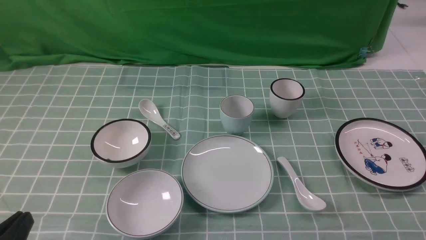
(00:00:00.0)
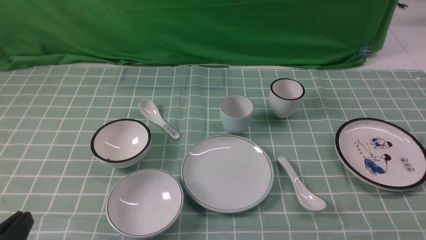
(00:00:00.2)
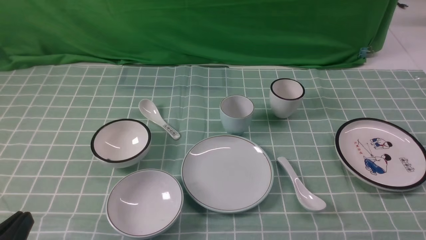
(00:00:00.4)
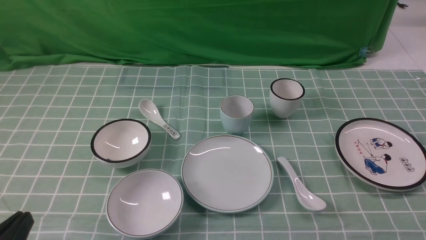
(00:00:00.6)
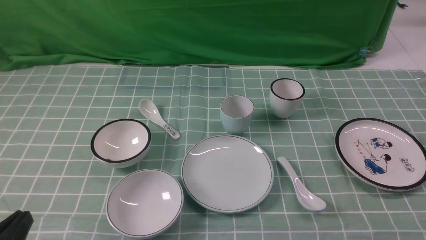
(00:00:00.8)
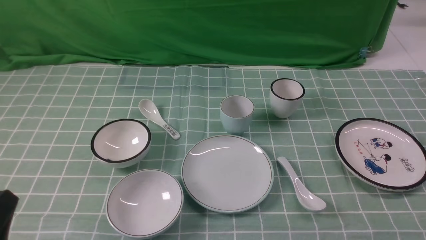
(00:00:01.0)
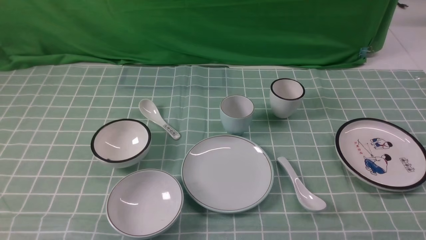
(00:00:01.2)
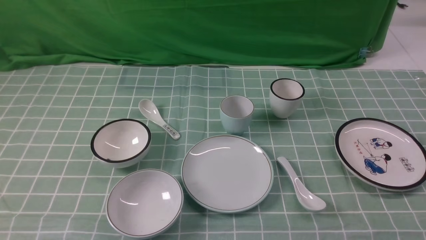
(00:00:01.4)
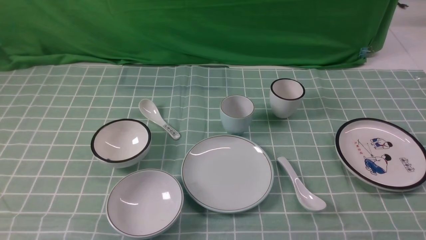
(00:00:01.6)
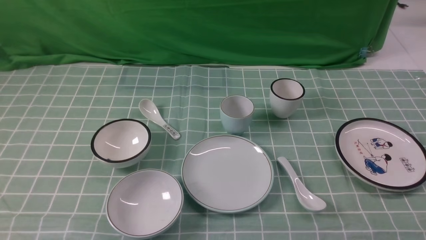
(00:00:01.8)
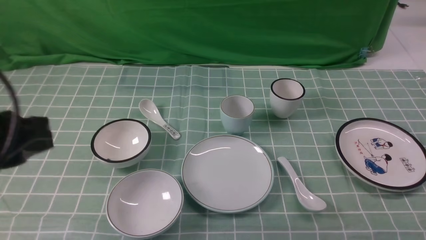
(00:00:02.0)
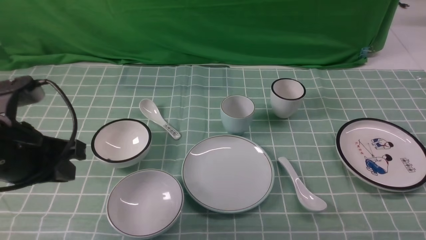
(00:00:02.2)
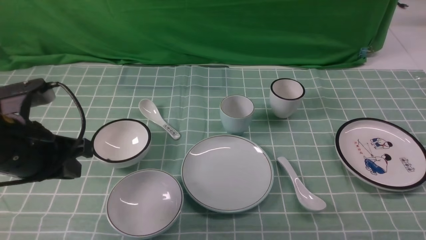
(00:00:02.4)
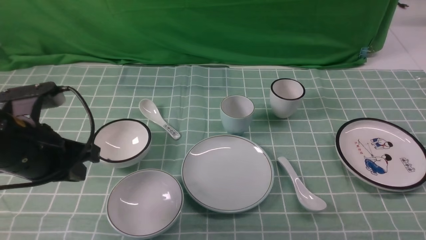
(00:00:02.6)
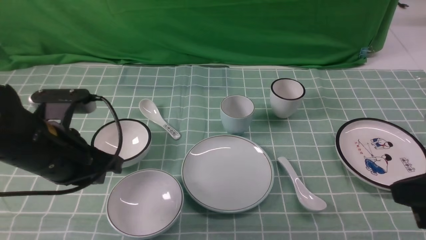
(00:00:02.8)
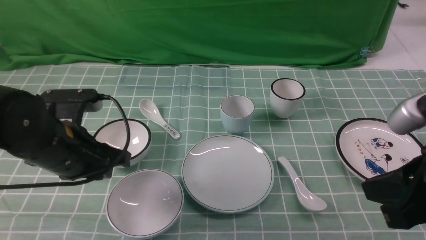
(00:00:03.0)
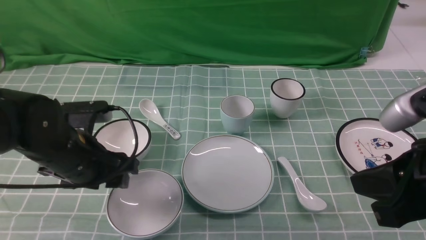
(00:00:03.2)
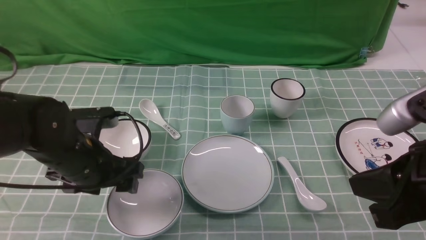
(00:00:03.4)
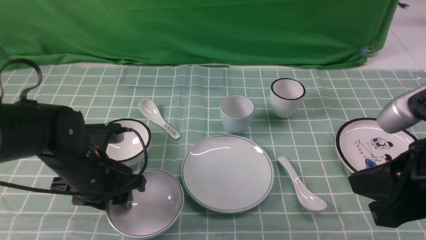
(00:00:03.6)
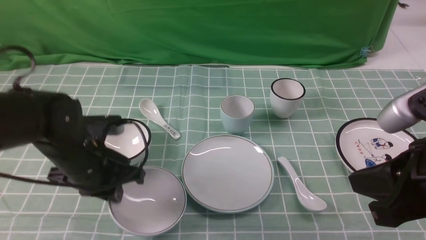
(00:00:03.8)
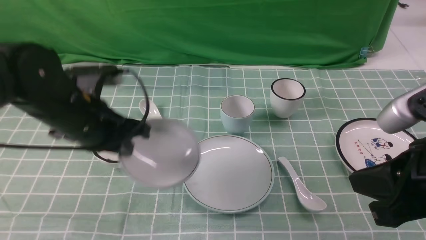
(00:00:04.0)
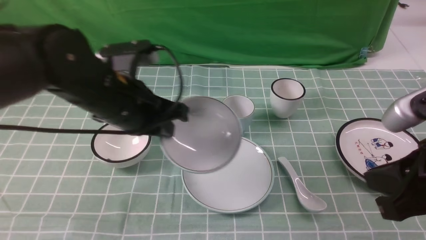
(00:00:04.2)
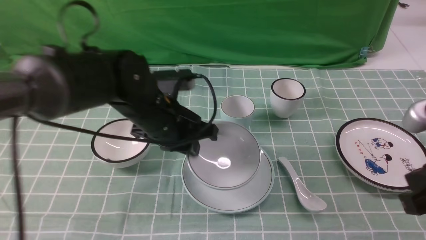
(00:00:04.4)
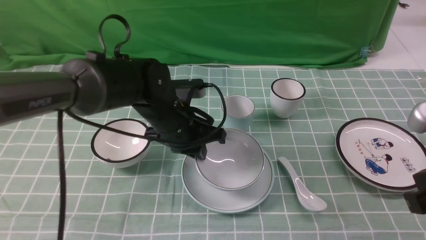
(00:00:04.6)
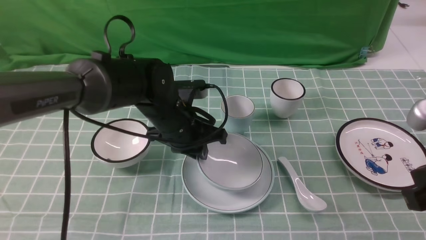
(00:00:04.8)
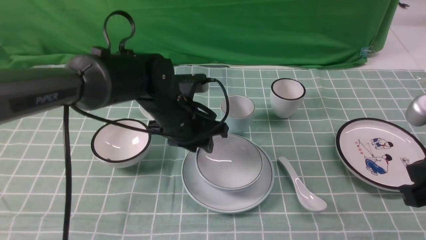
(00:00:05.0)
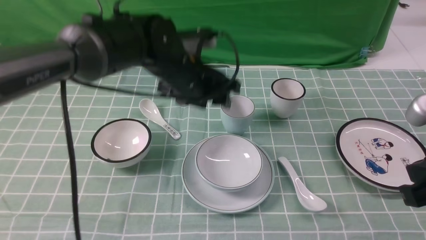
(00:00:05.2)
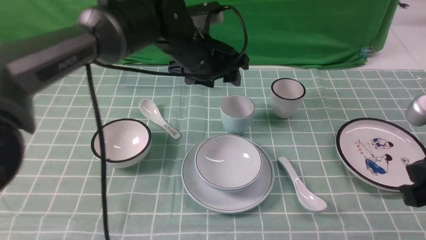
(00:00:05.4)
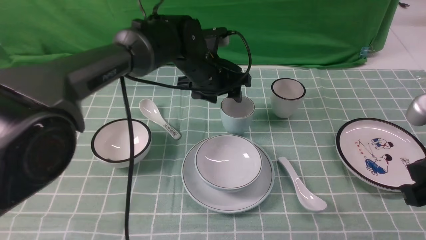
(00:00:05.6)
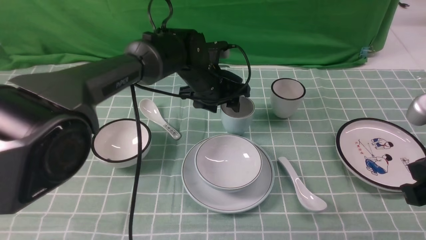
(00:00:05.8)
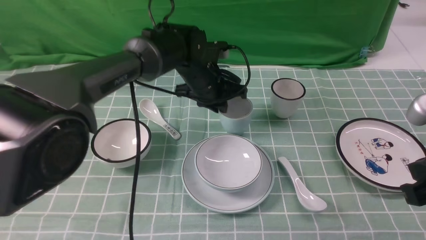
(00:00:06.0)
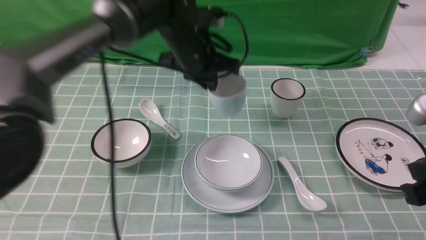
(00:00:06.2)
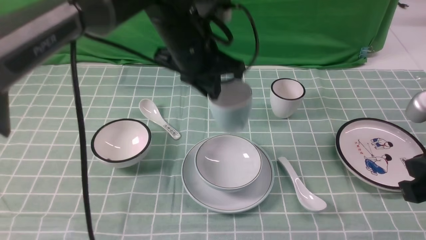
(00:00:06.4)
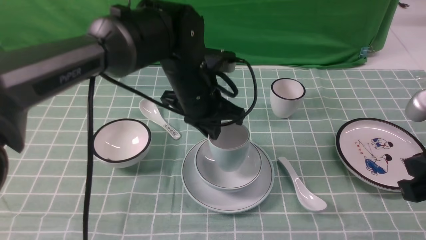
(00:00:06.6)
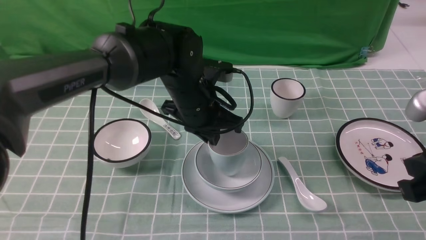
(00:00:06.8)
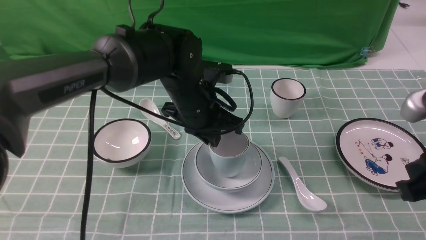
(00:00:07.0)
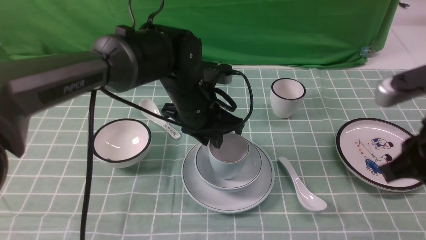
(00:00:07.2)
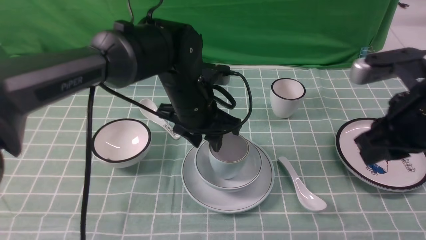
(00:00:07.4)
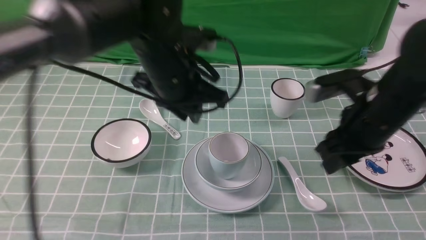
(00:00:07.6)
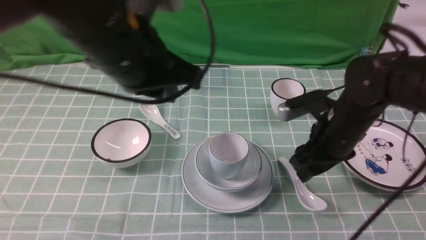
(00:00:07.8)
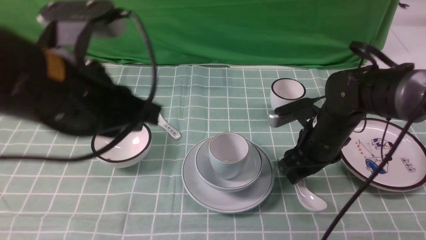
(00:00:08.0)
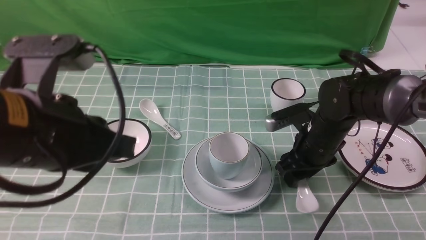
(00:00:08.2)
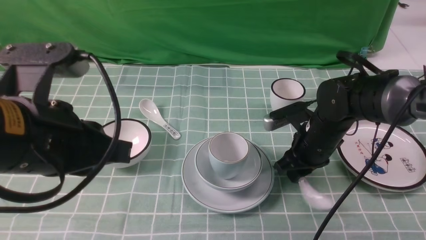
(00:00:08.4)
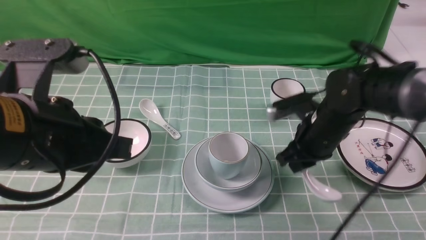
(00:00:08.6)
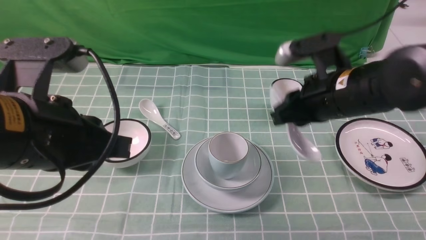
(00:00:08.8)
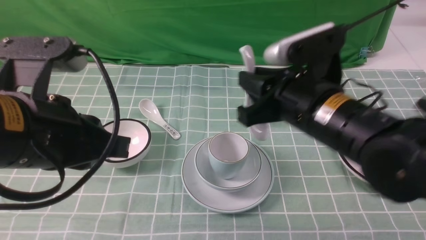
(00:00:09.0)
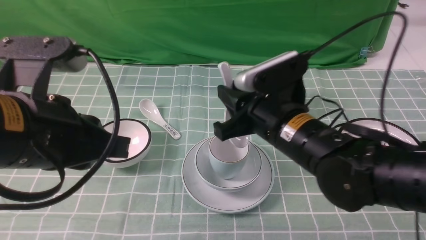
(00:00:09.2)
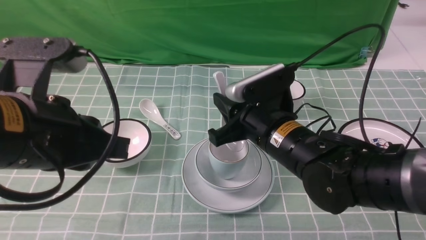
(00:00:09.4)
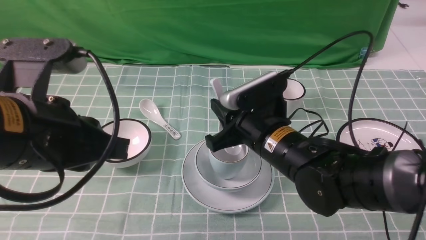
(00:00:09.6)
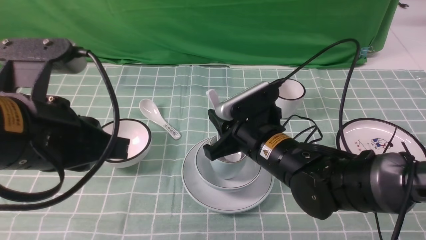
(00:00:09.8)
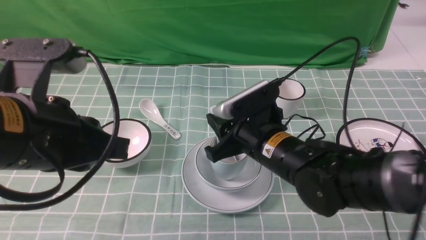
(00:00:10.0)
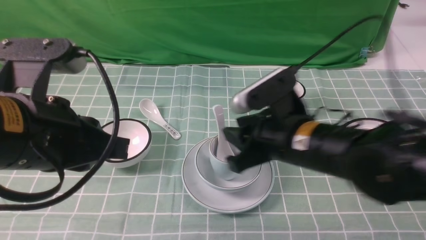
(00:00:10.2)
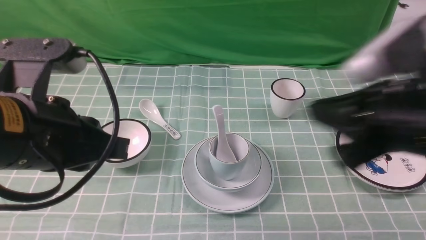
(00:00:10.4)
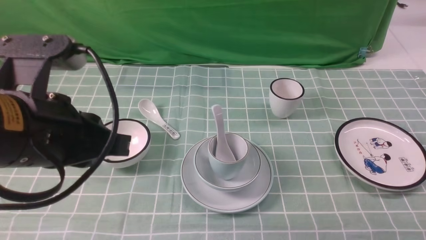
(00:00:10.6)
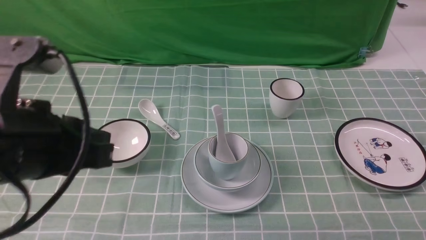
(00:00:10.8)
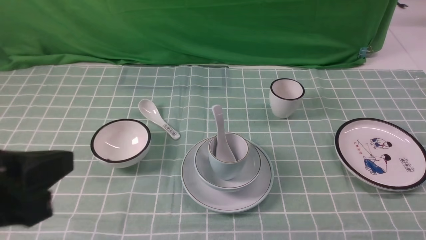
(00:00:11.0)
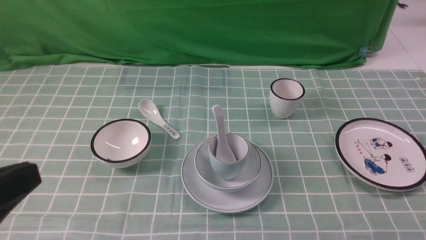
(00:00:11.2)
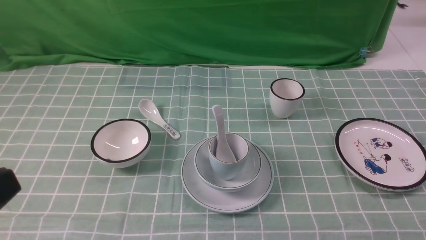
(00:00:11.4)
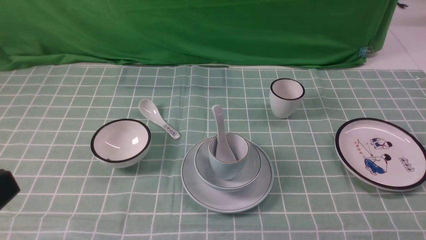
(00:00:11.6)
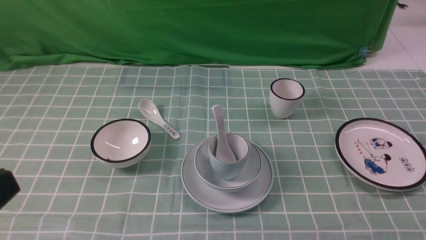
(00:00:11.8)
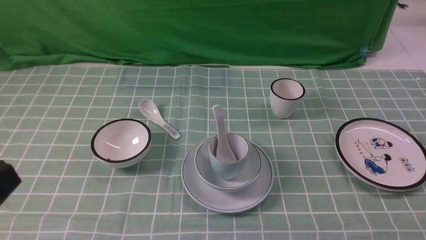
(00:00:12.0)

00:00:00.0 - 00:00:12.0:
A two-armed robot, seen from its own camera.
Task of the whole recording: place the bowls on the plates on the blue tablecloth, put the cups on the bowls, and place the spoons in the cups.
Step, 00:00:00.0 - 00:00:03.6: Grasp the bowl with the left gripper.
Step, 00:00:03.8 - 00:00:05.0: Place the bowl on the plate with the left gripper.
Step, 00:00:05.2 - 00:00:05.8: Grasp the cup with the left gripper.
Step, 00:00:06.2 - 00:00:07.2: Place the cup on the bowl with the left gripper.
Step, 00:00:07.4 - 00:00:08.4: Grasp the spoon with the right gripper.
Step, 00:00:08.6 - 00:00:10.0: Place the spoon on the cup with the right gripper.
00:00:01.6 - 00:00:03.0: The right gripper heads upward, to the left and forward, covering roughly 20 cm, and closes, while the left gripper travels forward by roughly 20 cm.
00:00:03.0 - 00:00:04.4: The left gripper goes roughly 10 cm to the right and forward, and opens, then closes again.
00:00:04.4 - 00:00:06.0: The left gripper heads forward and to the right, covering about 15 cm, and opens its fingers.
00:00:06.0 - 00:00:07.6: The right gripper heads forward, covering approximately 15 cm, and opens up, while the left gripper heads backward and upward, covering about 15 cm, and closes, then opens again.
00:00:07.6 - 00:00:09.0: The left gripper travels backward and to the left by roughly 20 cm, and closes its fingers; the right gripper goes some 10 cm to the left, reaches approximately 15 cm downward, then returns, and opens, then closes once more.
00:00:09.0 - 00:00:10.4: The right gripper shifts roughly 10 cm backward and upward.
00:00:10.4 - 00:00:12.0: The right gripper moves backward and to the right, about 25 cm. Meanwhile the left gripper goes about 15 cm backward and to the left.

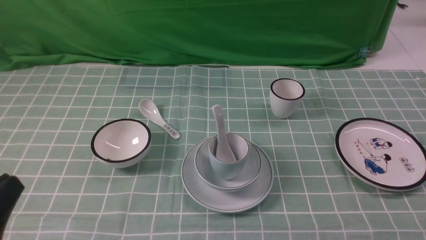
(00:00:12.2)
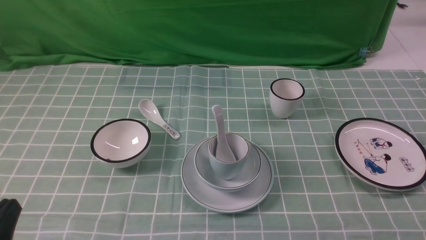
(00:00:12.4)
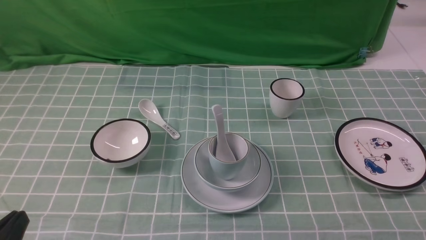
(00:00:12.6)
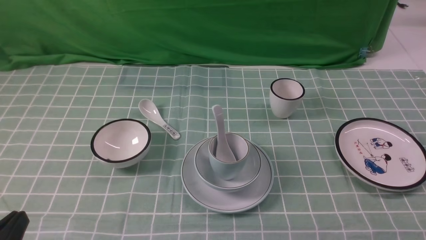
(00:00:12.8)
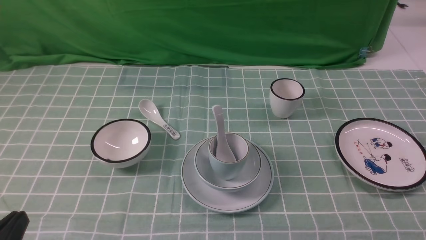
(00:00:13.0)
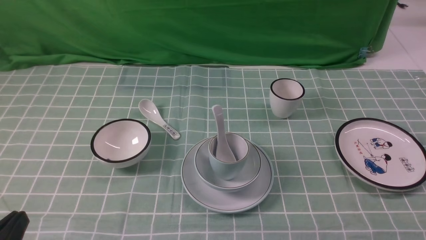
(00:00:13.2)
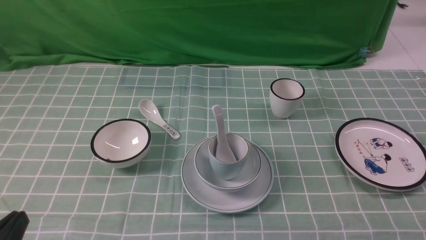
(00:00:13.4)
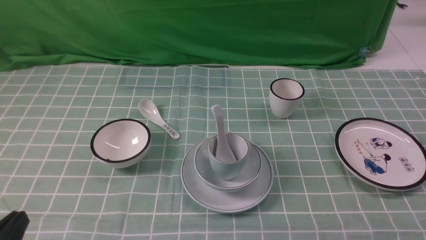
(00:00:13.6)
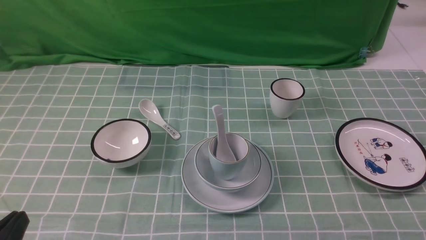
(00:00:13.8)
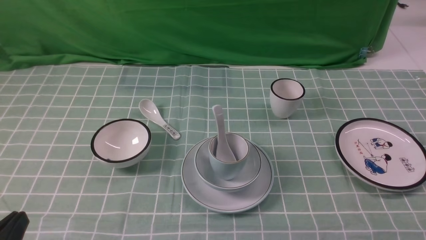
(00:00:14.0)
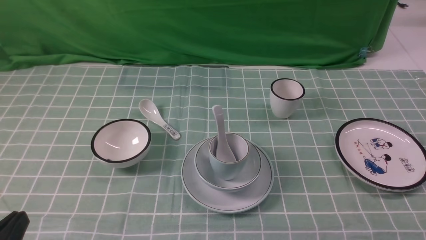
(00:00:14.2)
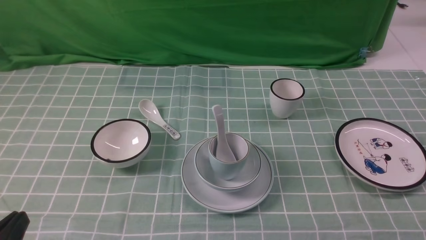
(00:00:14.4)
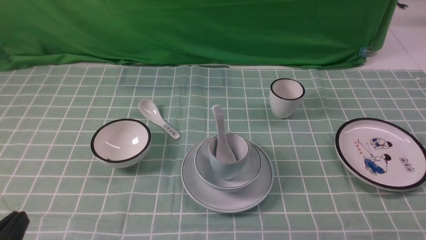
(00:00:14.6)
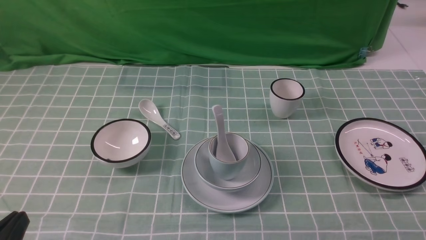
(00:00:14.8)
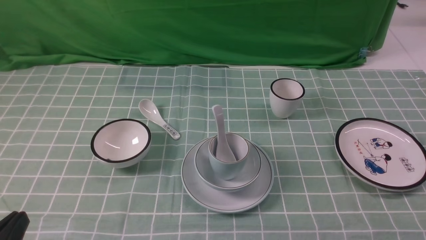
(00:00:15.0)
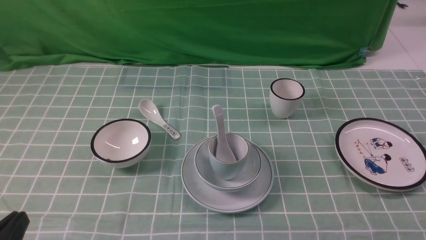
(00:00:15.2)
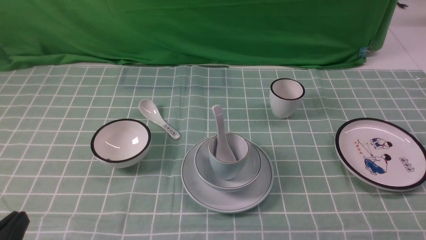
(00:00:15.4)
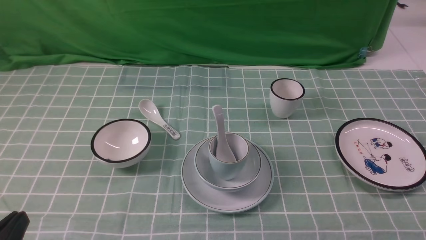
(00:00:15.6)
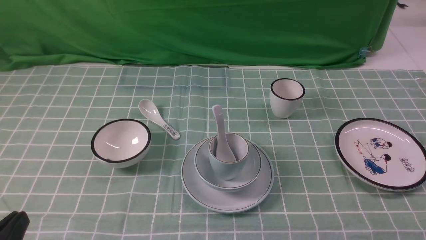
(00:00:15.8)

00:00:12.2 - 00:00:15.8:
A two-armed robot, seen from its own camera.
Task of the whole recording: place the bowls on the plates on the blue tablecloth, put the cups on the bowls, and place the spoons in the cups.
00:00:12.2 - 00:00:14.0: The left gripper travels downward by approximately 10 cm.
